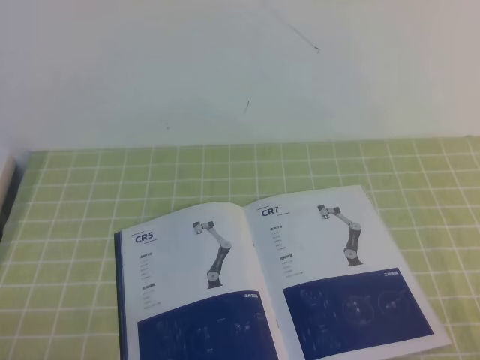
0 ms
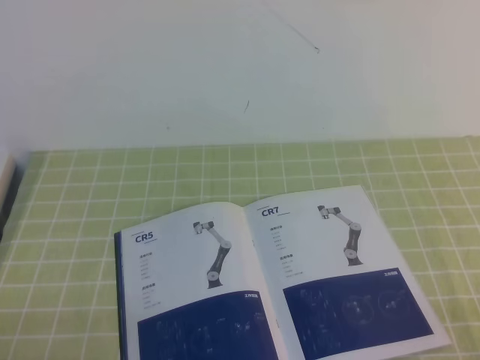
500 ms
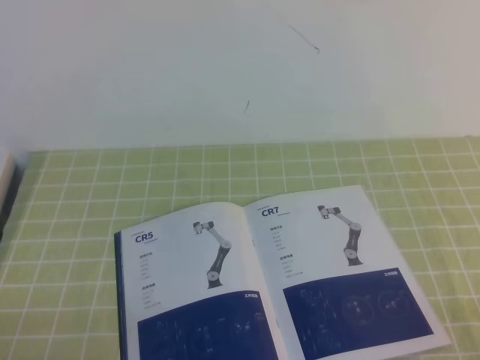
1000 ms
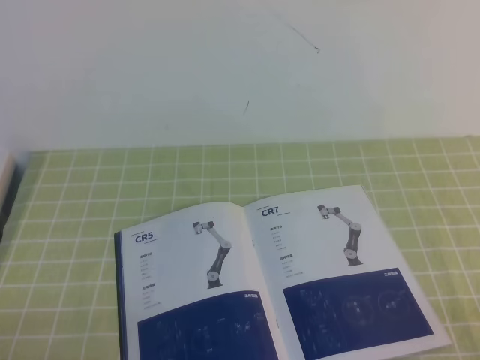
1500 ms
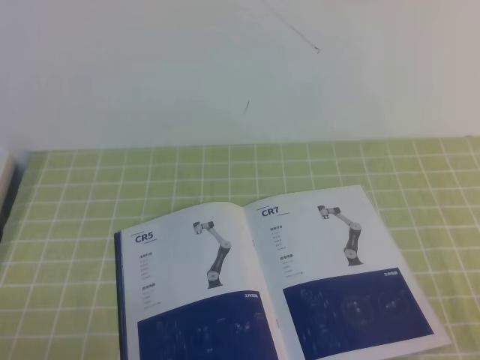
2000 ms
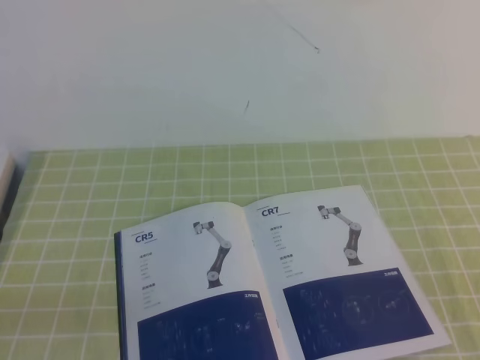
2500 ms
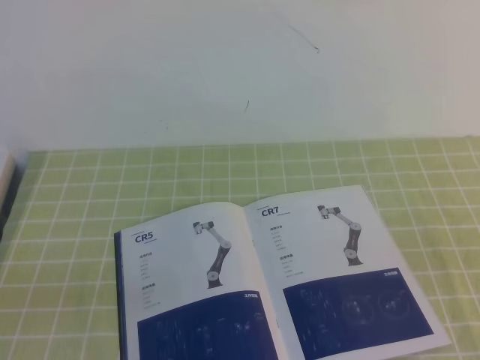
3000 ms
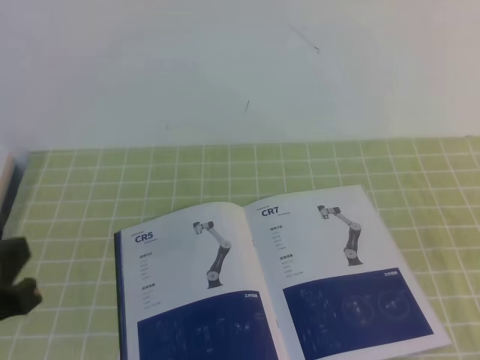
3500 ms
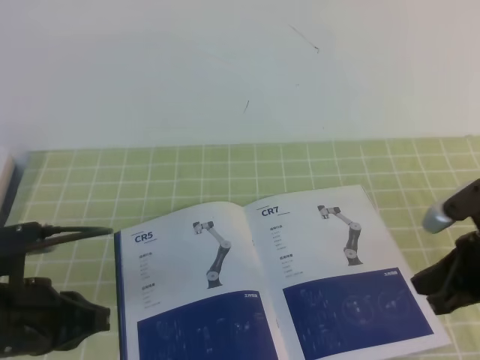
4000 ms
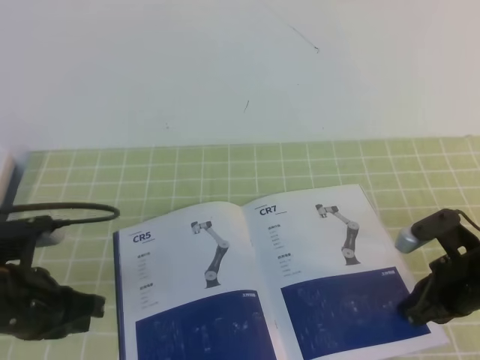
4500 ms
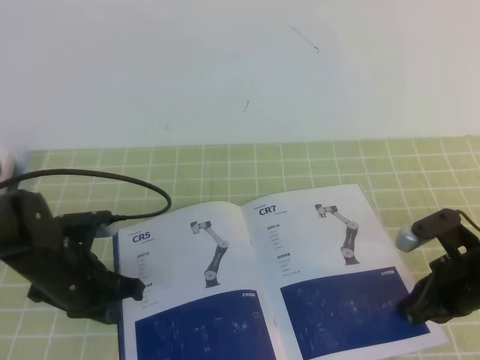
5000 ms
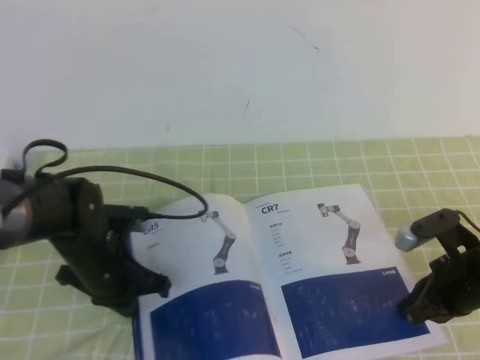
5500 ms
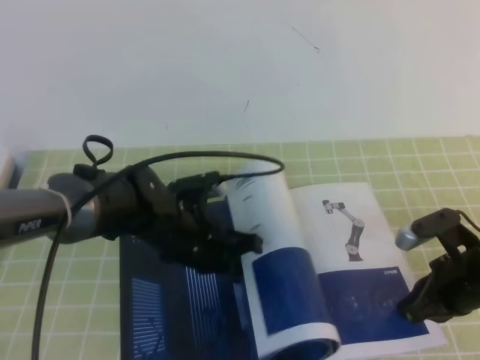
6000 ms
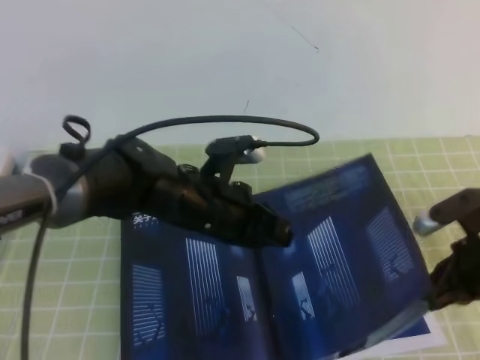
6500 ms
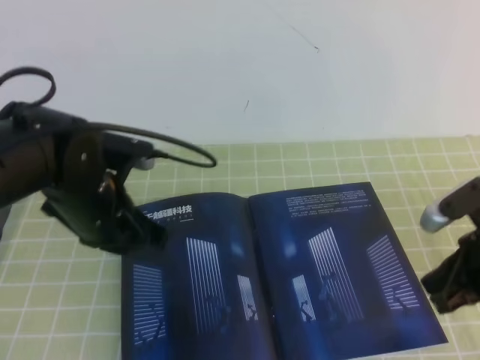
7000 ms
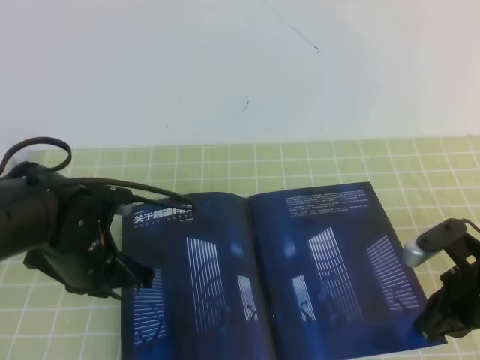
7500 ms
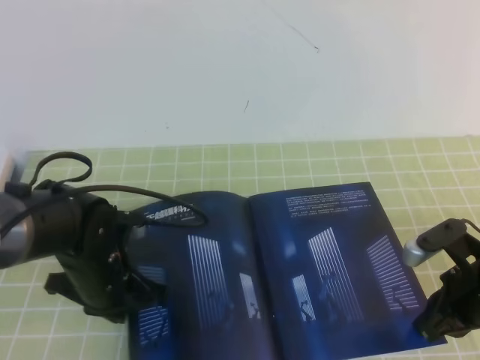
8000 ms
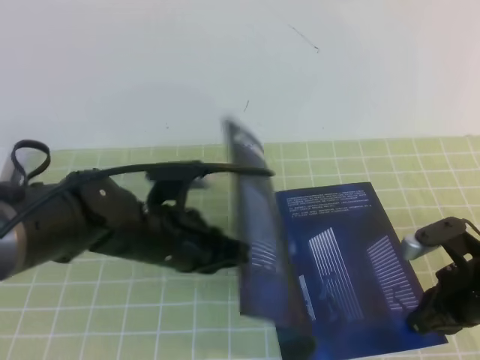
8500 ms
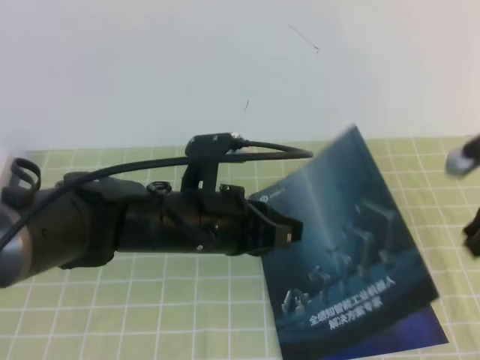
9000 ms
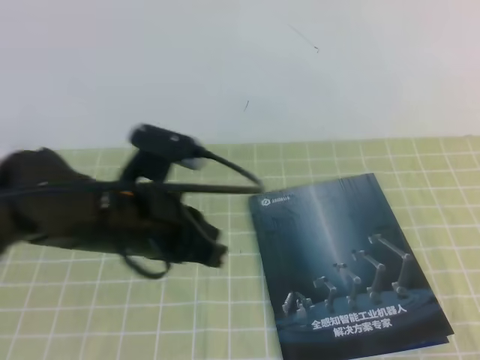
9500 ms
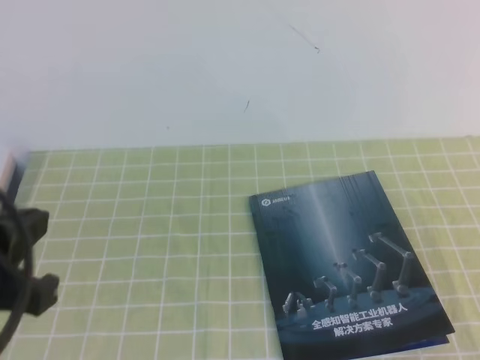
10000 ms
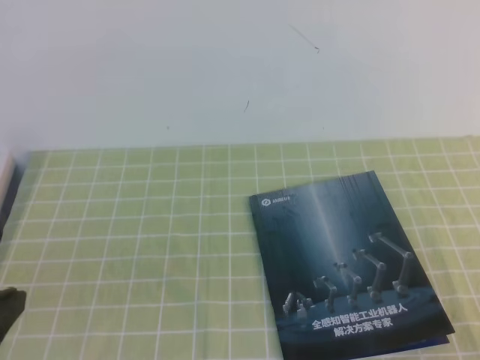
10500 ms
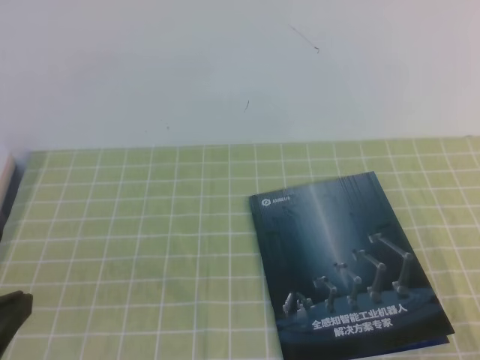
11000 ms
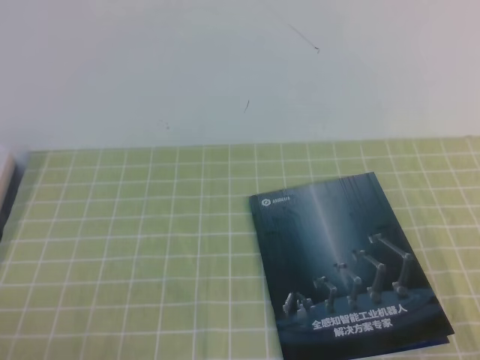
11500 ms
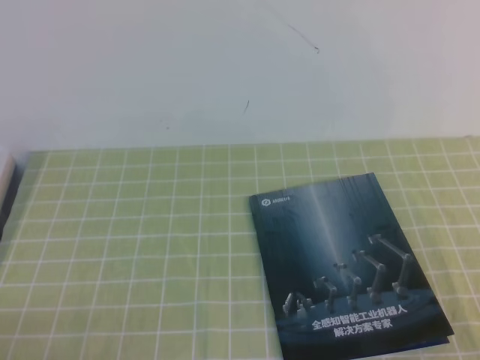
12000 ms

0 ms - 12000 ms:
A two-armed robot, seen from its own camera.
Task of the whole recording: on the green tablecloth, hold the book with one hand and close it with the other.
2000 ms - 4000 ms: The right gripper heads forward, covering some 20 cm. The left gripper goes about 15 cm forward.
4000 ms - 6000 ms: The right gripper heads downward, covering approximately 10 cm. Meanwhile the left gripper travels to the right, forward and downward by roughly 20 cm.
6000 ms - 8000 ms: The left gripper shifts some 10 cm to the left.
8000 ms - 10000 ms: Both grippers move upward and backward, some 25 cm.
10000 ms - 12000 ms: The right gripper travels downward by roughly 10 cm; the left gripper moves downward and backward, approximately 20 cm.

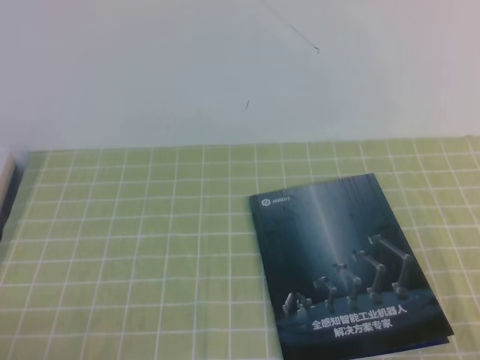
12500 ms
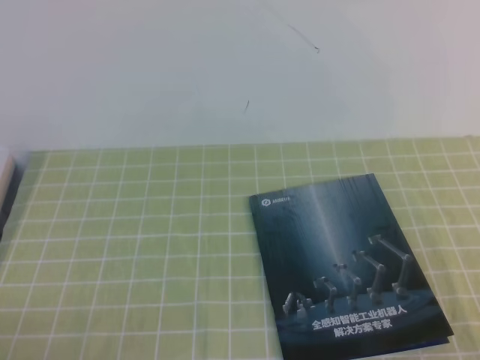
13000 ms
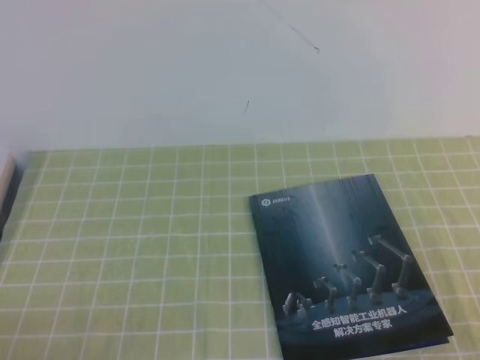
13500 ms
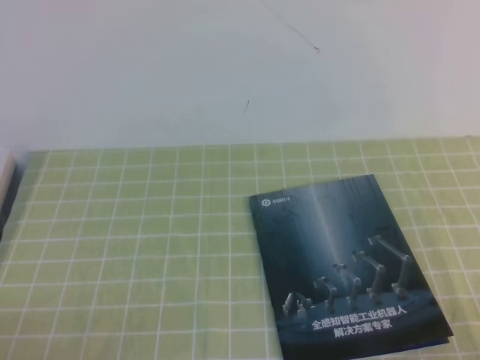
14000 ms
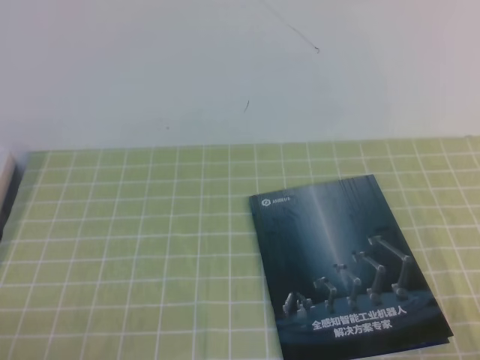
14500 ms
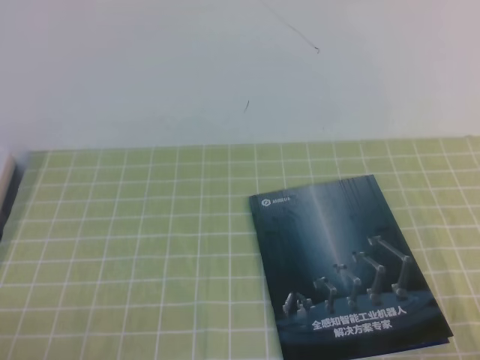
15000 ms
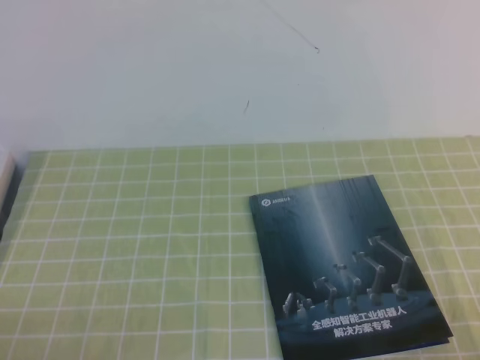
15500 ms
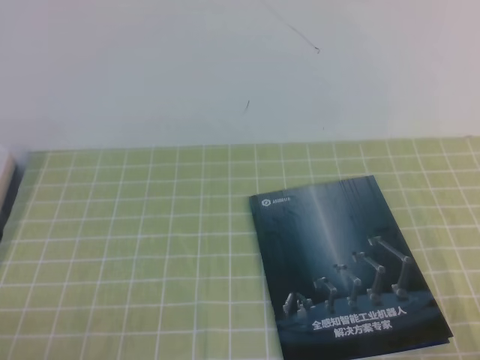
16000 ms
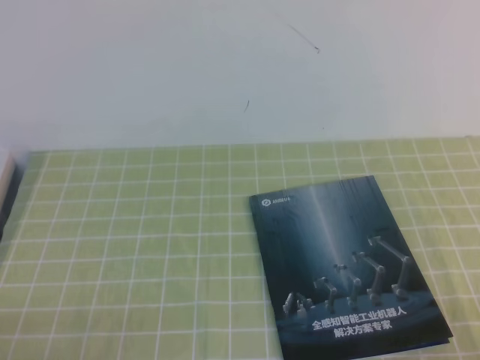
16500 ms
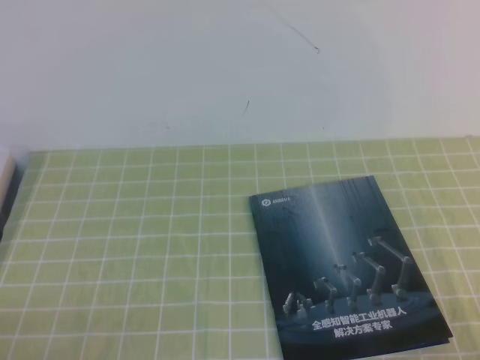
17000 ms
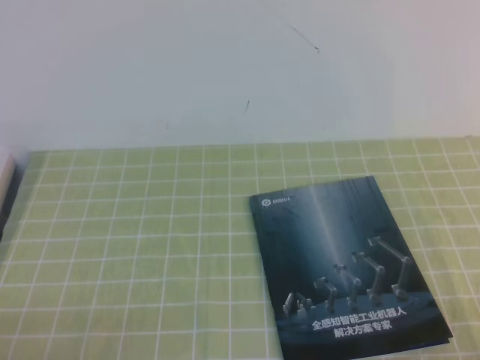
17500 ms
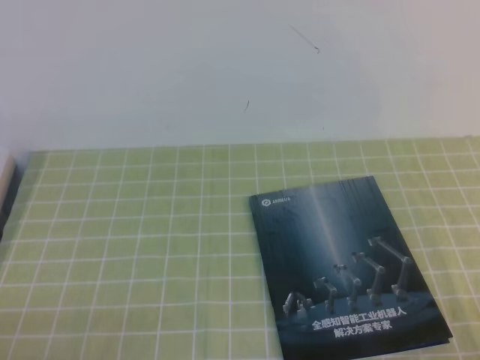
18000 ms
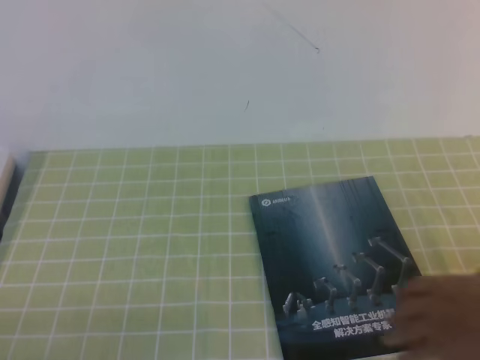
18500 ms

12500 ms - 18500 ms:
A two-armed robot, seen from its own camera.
Task of the whole recording: on the green tablecloth, hold the book with one hand and close it with the other.
Step, 12500 ms - 18500 ms: Close the open book.
16500 ms - 18500 ms: Both grippers stay about where they are.
